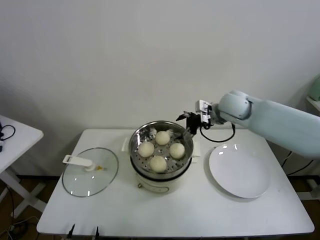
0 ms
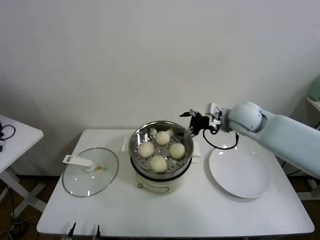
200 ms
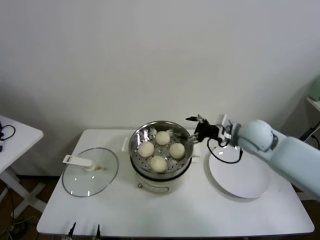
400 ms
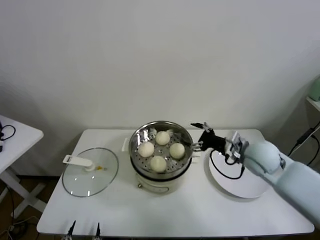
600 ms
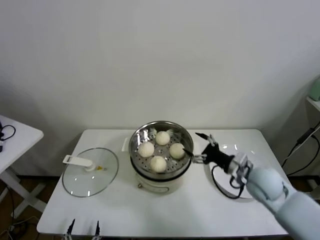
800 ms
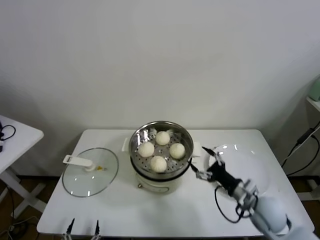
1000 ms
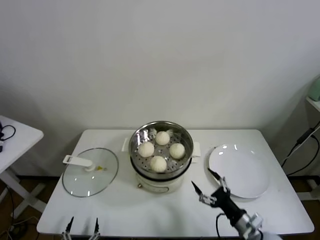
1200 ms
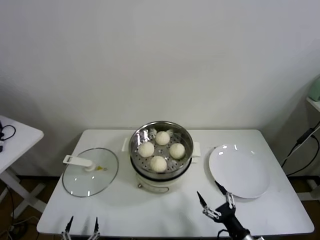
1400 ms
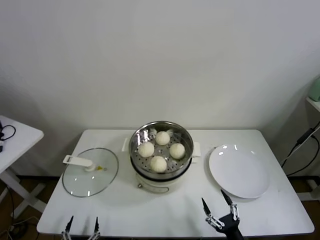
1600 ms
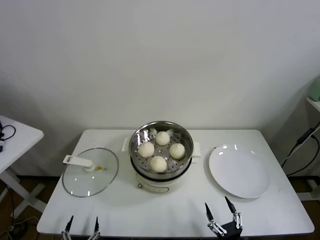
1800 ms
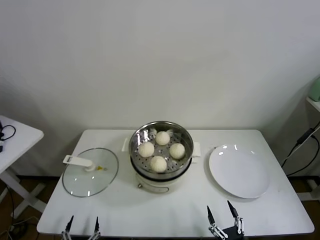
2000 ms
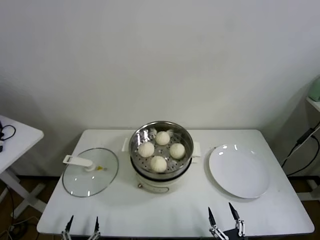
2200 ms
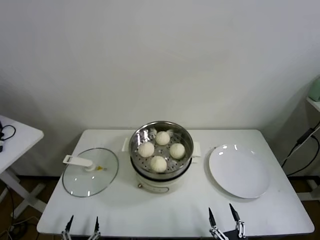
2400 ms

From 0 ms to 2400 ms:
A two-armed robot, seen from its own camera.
Task of the whole recording: take steamed baozi put them in steamer.
From 0 ms to 1200 ms: The right gripper travels backward and downward by about 40 cm.
From 1200 ms to 2400 ms: The right gripper moves backward and downward, about 20 cm.

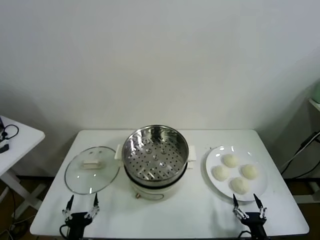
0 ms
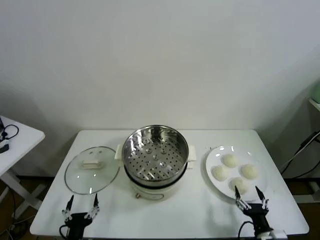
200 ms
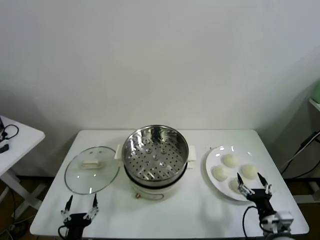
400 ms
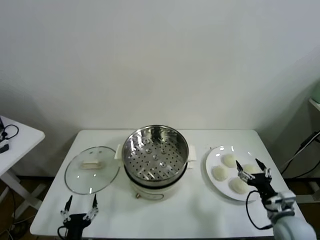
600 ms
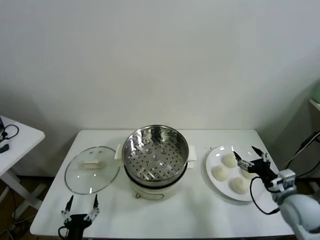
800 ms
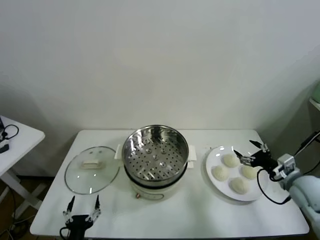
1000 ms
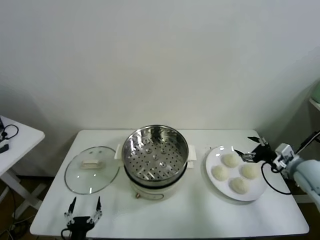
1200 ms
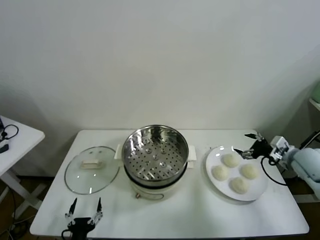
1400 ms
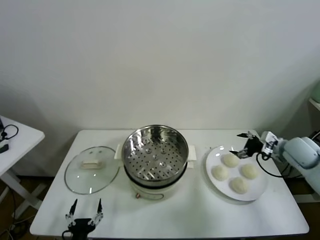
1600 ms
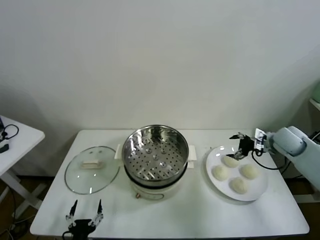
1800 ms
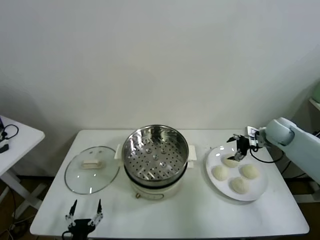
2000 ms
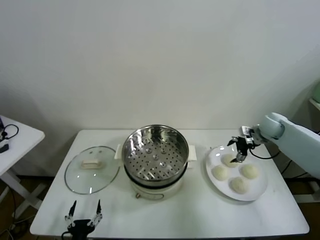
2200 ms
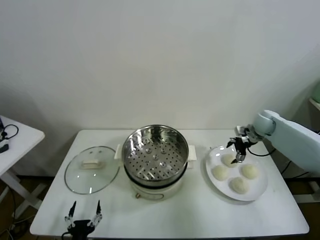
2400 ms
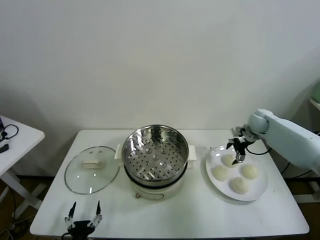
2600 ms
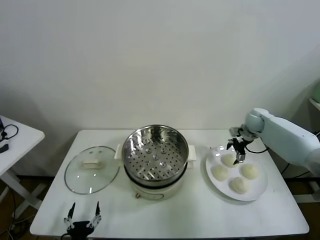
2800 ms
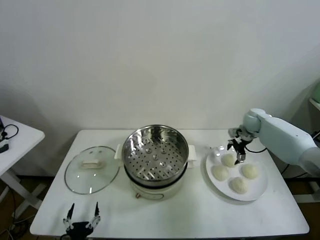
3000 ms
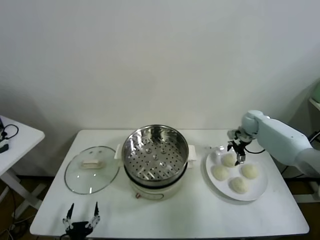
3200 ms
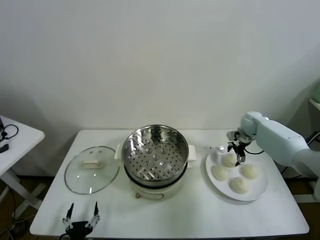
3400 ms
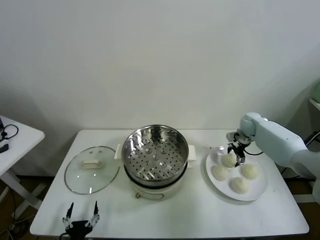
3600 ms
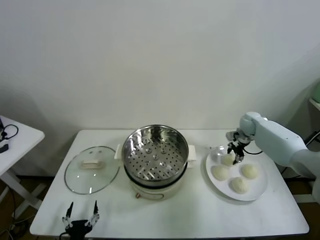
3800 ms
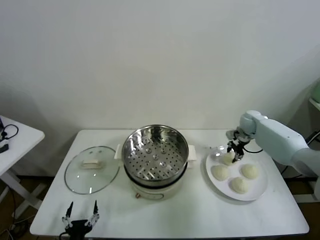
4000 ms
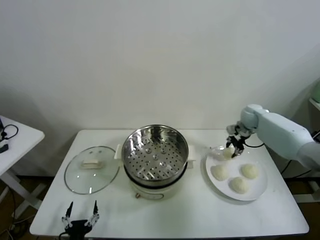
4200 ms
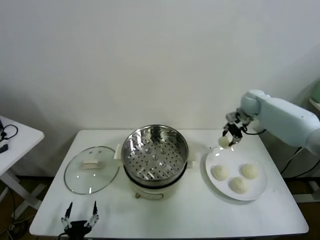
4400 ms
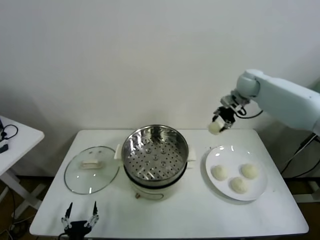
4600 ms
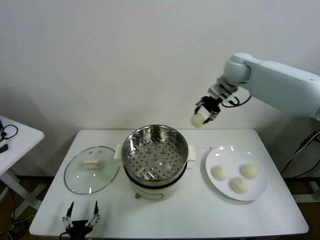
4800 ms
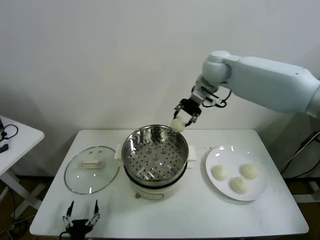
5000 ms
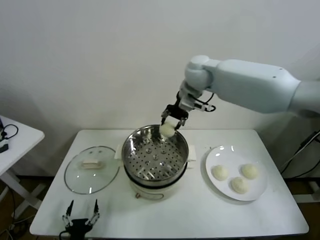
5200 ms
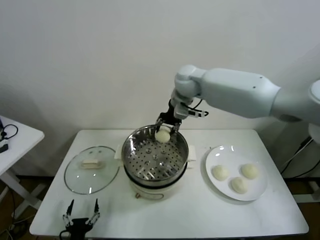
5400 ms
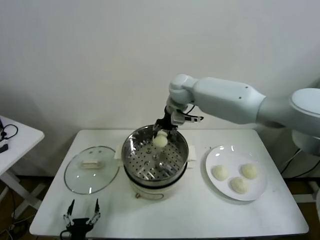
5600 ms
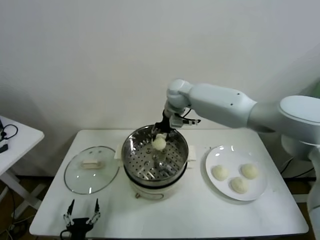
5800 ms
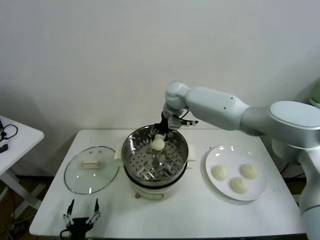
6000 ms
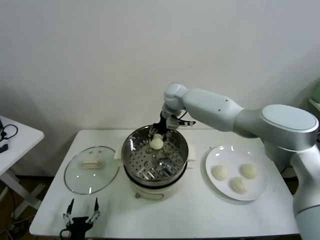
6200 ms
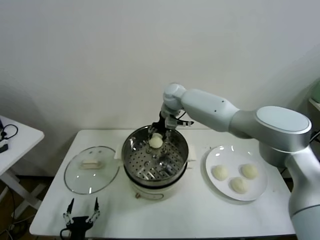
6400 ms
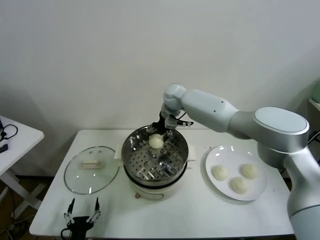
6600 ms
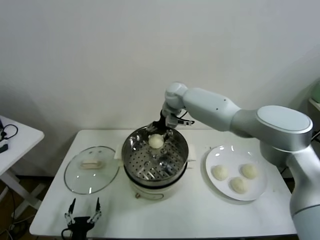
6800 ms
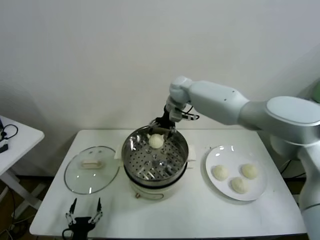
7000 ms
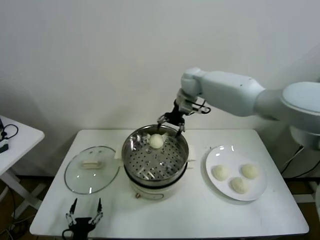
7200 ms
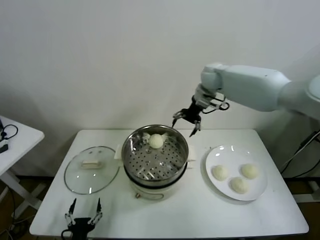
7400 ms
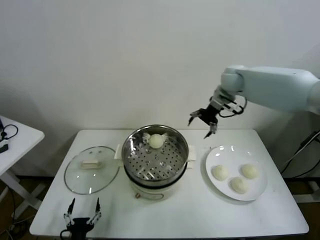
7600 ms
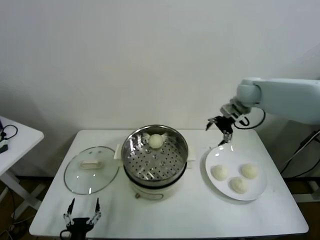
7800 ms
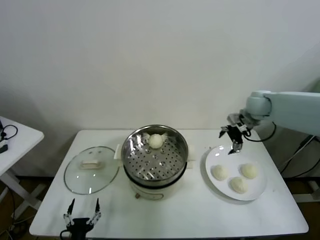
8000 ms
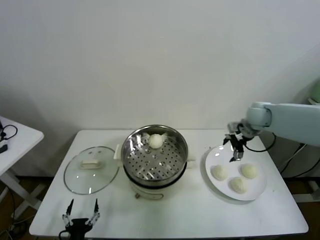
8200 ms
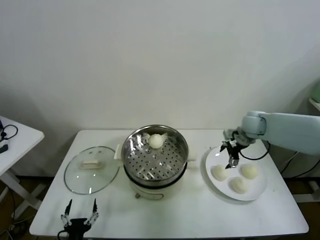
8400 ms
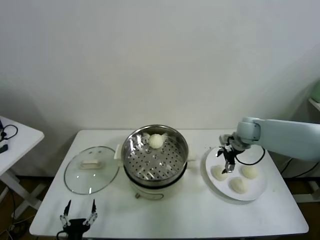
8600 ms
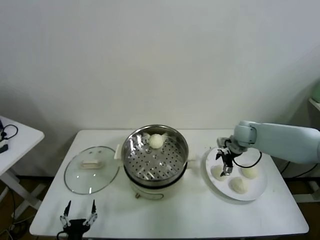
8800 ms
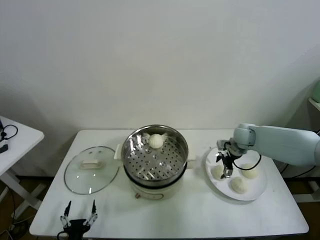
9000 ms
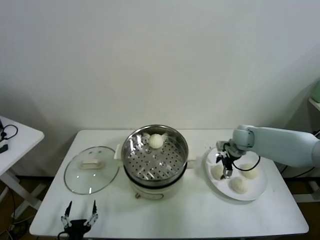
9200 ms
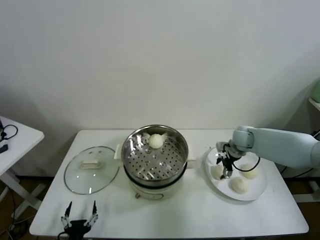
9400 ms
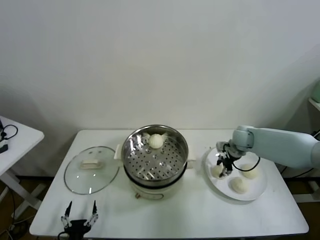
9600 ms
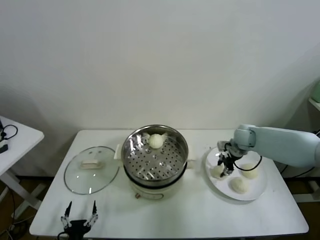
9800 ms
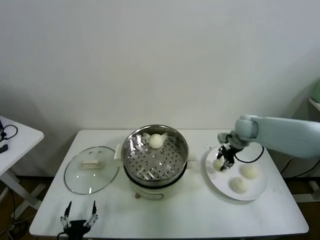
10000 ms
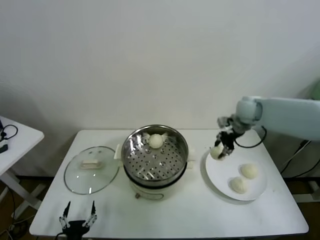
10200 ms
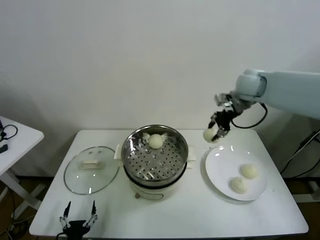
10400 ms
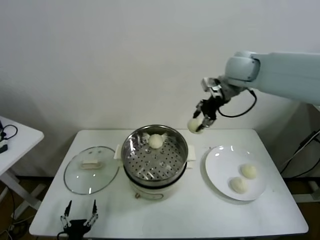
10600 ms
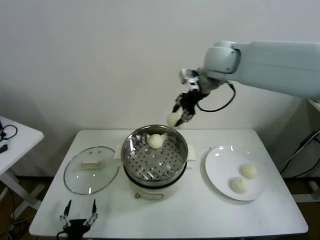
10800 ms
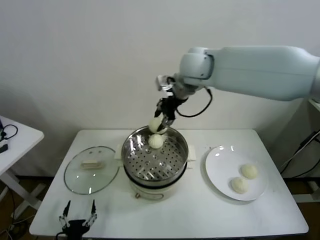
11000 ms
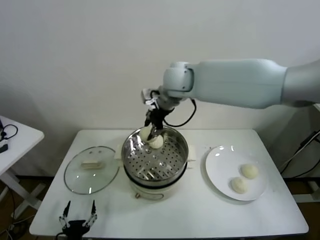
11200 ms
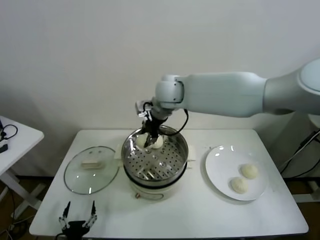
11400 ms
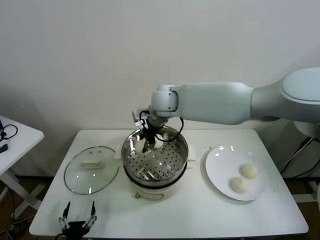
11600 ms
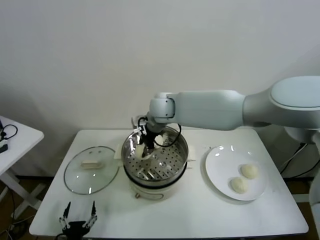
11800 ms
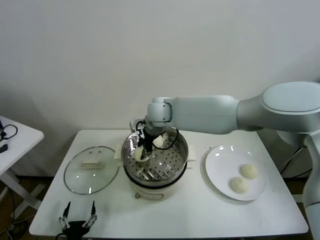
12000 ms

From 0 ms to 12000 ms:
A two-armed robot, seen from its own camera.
Task of the whole recording: take steamed baozi put them in steamer.
Step, from 0 ms to 3600 ms: Grasp the baozi in the plate with right gripper.
Step, from 3800 ms to 6600 ms: Place the baozi on the steamer with right gripper.
Step, from 6800 ms to 9400 ms: Grasp the baozi in the plate with right gripper.
From 1600 ms to 3000 ms: The right gripper goes approximately 15 cm forward.
From 3000 ms to 4400 ms: The right gripper shifts some 15 cm upward, and closes up.
From 4400 ms to 6000 ms: The right gripper moves to the left, about 30 cm.
From 6000 ms to 7600 ms: The right gripper heads to the right, covering approximately 20 cm, and opens its fingers.
From 7600 ms to 9000 ms: The right gripper heads downward, covering some 20 cm.
From 9000 ms to 10400 ms: The right gripper goes some 25 cm upward, and closes its fingers.
From 10400 ms to 12000 ms: The right gripper travels to the left by about 25 cm.

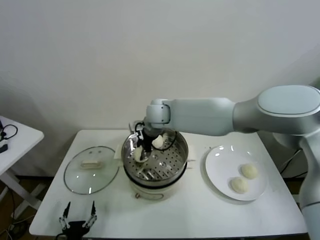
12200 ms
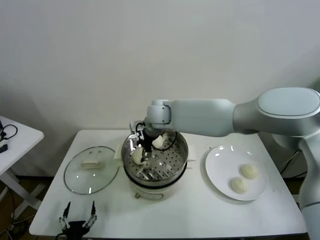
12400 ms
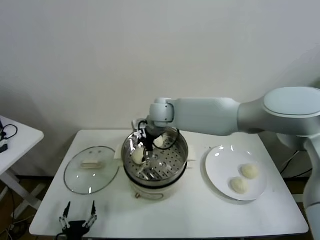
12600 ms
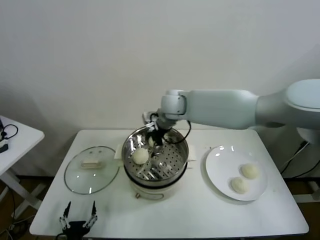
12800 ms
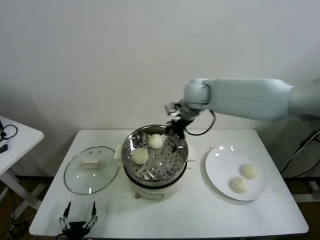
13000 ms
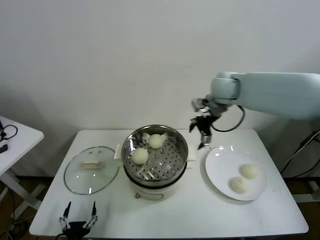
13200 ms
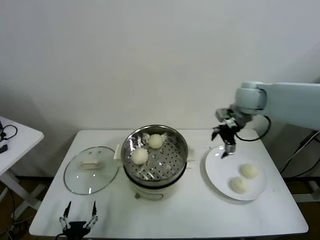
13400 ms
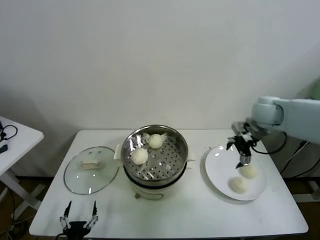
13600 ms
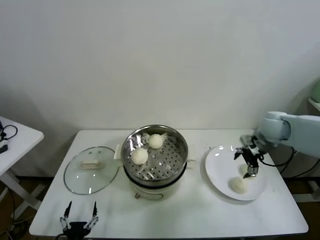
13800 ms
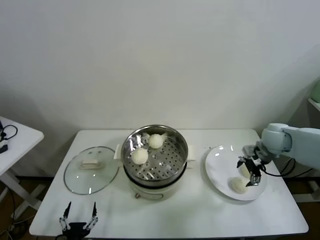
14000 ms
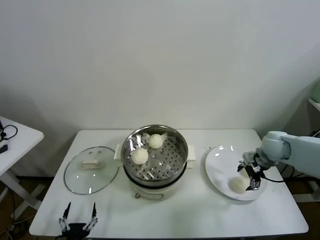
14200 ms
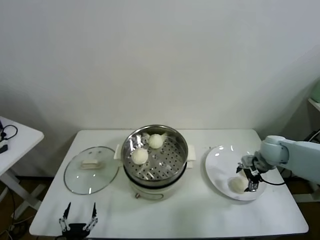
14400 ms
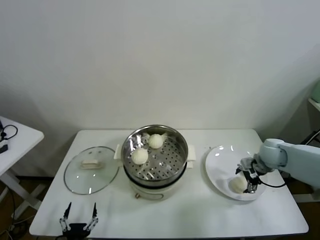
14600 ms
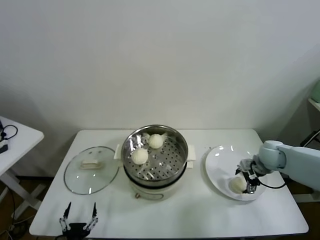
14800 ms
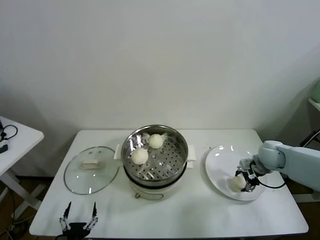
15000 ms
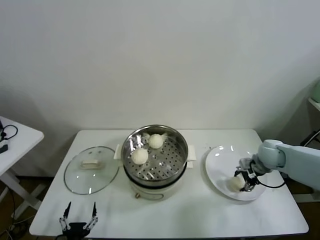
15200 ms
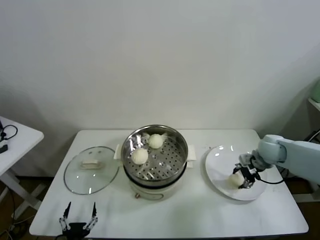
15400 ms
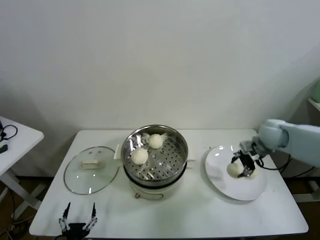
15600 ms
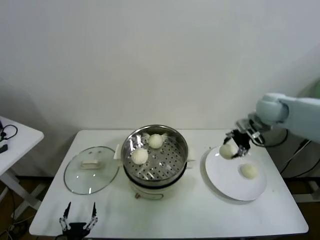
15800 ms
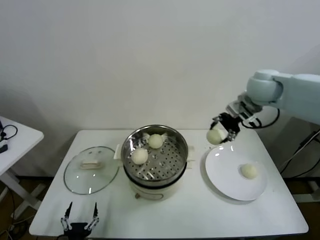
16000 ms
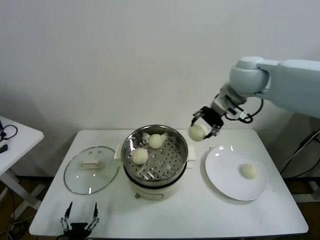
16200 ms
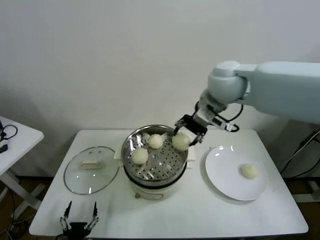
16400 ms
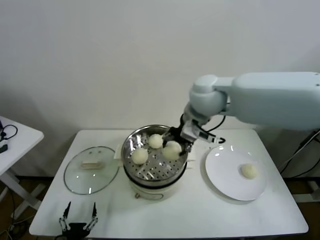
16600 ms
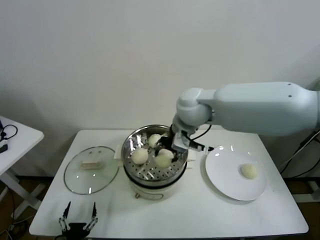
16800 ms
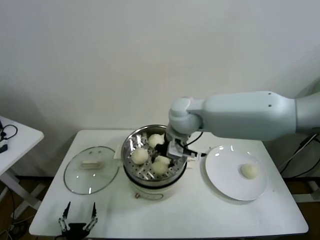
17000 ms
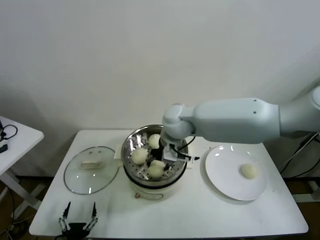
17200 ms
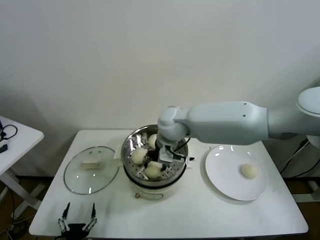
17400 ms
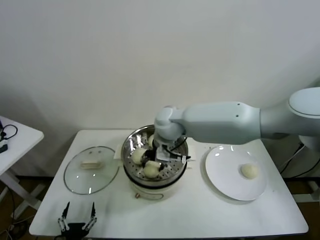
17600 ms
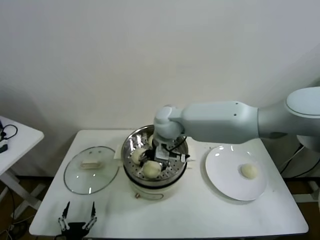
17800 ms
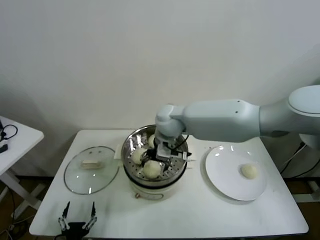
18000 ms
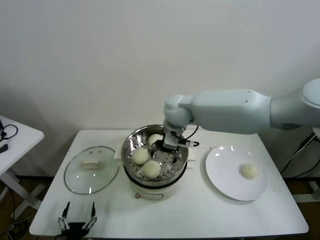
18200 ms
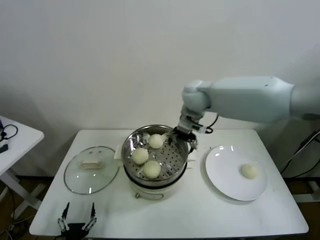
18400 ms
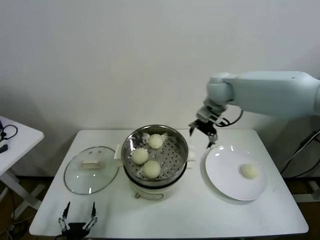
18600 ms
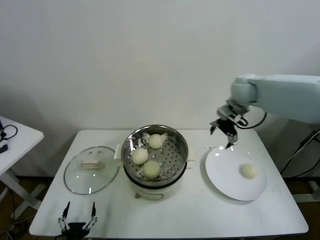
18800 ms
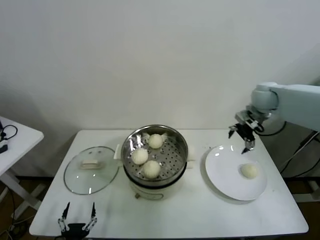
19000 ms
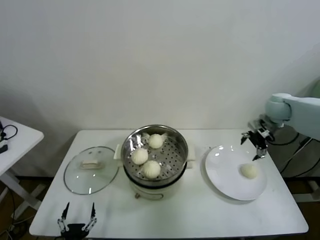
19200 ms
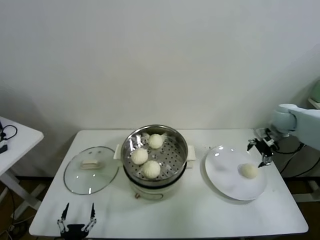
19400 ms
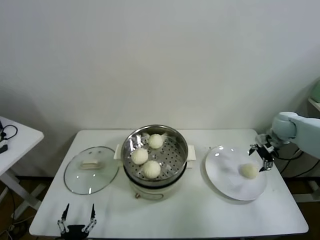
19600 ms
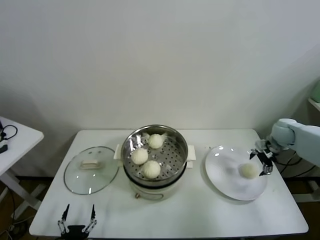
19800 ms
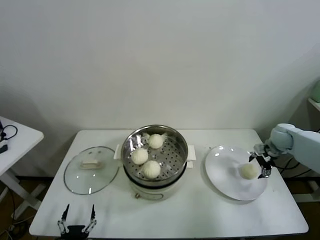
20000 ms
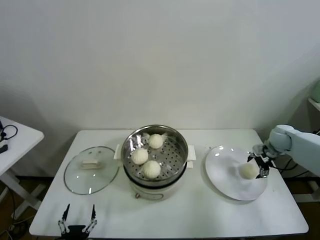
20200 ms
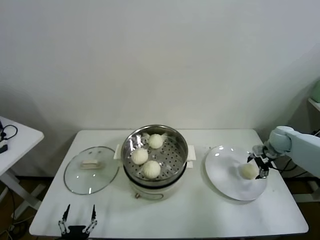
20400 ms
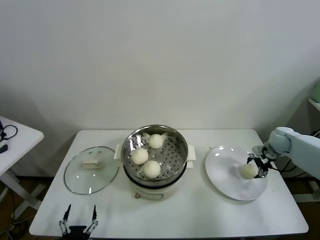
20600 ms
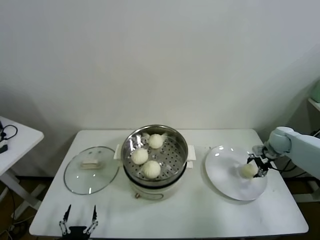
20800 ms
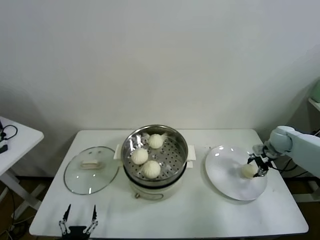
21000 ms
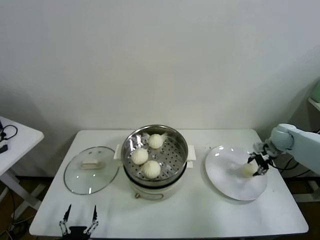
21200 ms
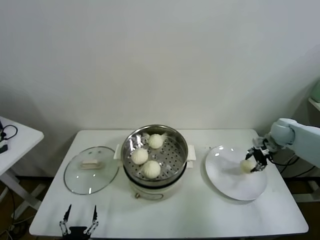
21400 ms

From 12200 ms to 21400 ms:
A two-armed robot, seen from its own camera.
Task of the whole recording: take steamed baozi put them in steamer.
Step, from 12600 ms to 15000 ms: Grasp the baozi in the plate with right gripper.
Step, from 15200 ms to 17600 ms: Place the baozi on the steamer with right gripper.
Step, from 18000 ms to 20800 ms: Grasp the baozi in the plate with right gripper.
From 12200 ms to 13800 ms: The right gripper goes some 40 cm to the right, and opens.
From 13800 ms to 15200 ms: The right gripper moves downward, some 10 cm, and closes up.
From 15200 ms to 16800 ms: The right gripper travels to the left and upward by about 40 cm.
From 16800 ms to 18400 ms: The right gripper goes some 10 cm forward, moves roughly 10 cm downward and comes back, and opens up.
From 18400 ms to 19800 ms: The right gripper travels to the right and downward by approximately 40 cm.
From 19800 ms to 21400 ms: The right gripper closes up.
